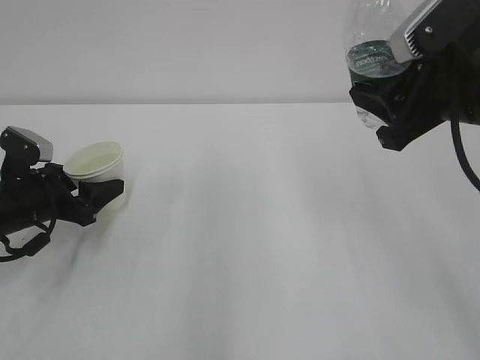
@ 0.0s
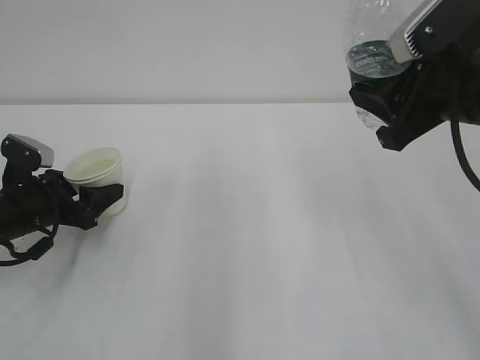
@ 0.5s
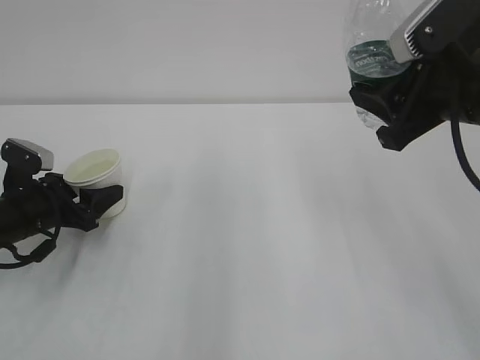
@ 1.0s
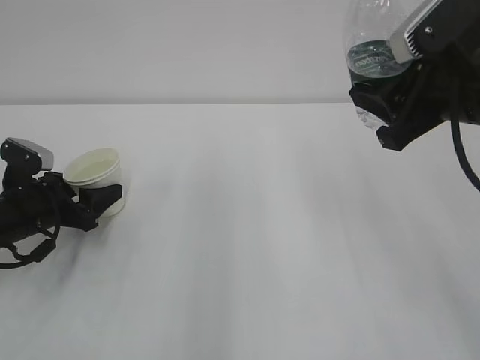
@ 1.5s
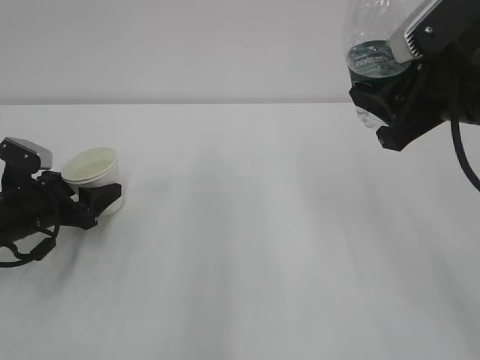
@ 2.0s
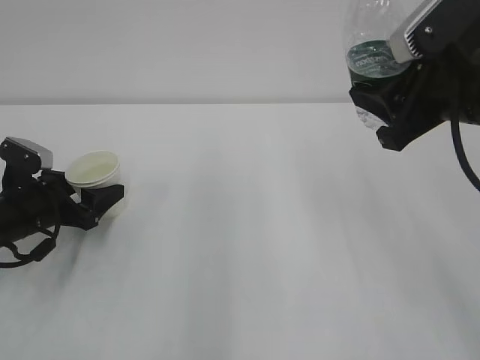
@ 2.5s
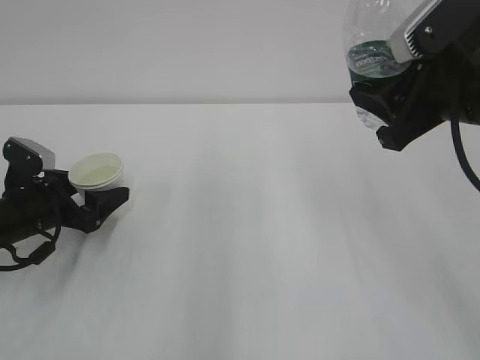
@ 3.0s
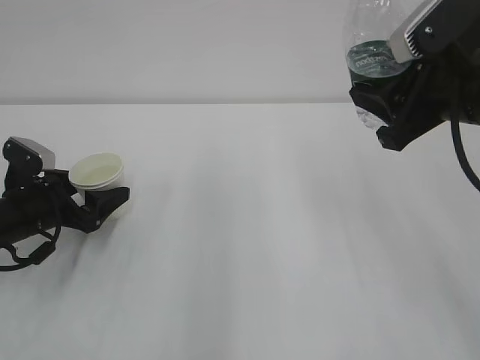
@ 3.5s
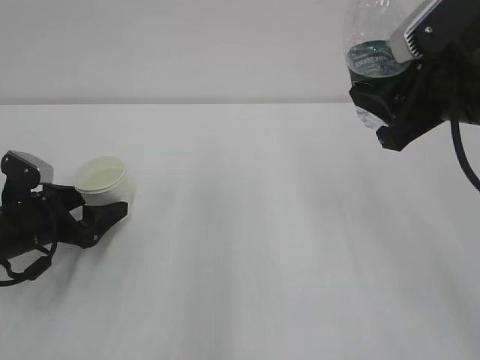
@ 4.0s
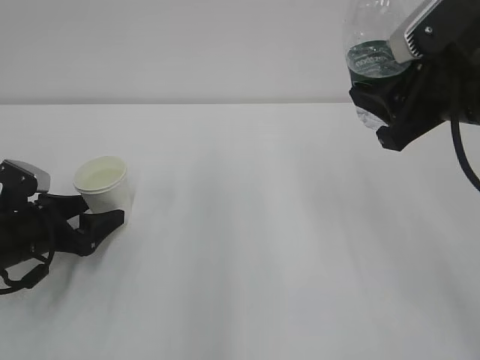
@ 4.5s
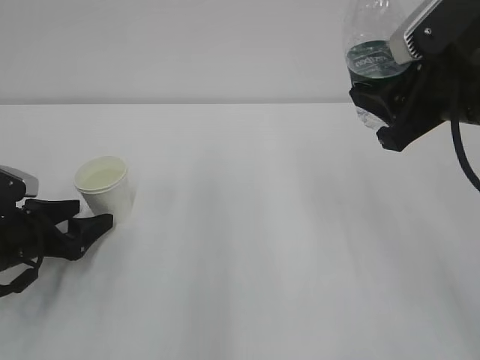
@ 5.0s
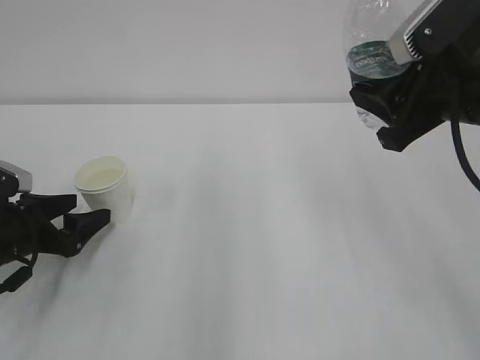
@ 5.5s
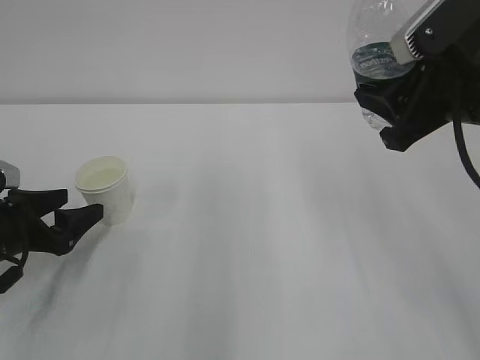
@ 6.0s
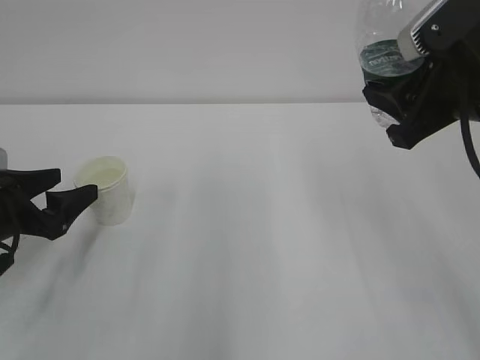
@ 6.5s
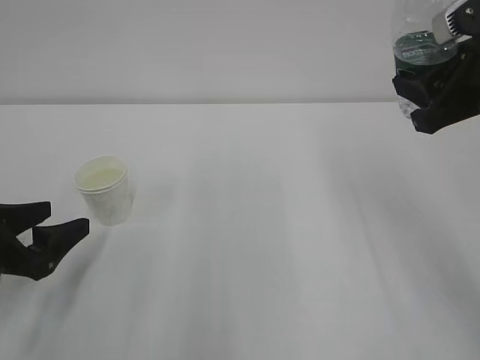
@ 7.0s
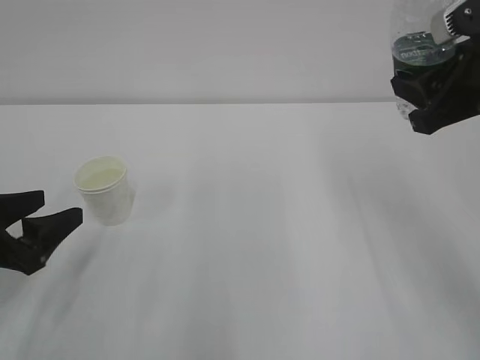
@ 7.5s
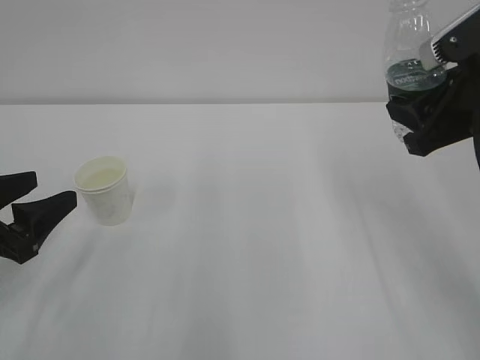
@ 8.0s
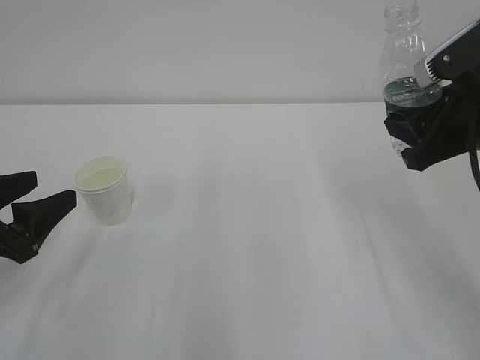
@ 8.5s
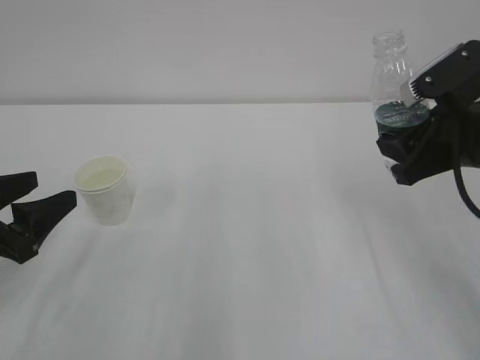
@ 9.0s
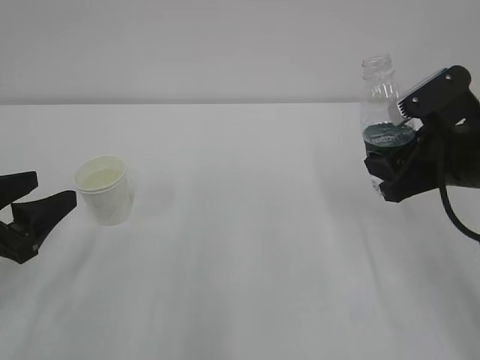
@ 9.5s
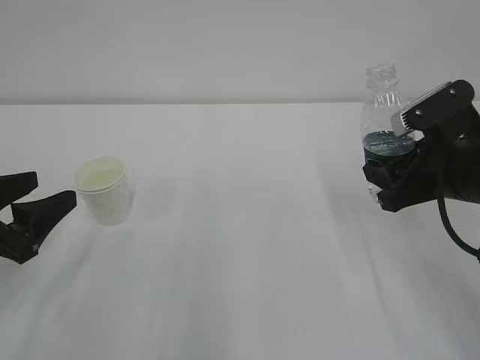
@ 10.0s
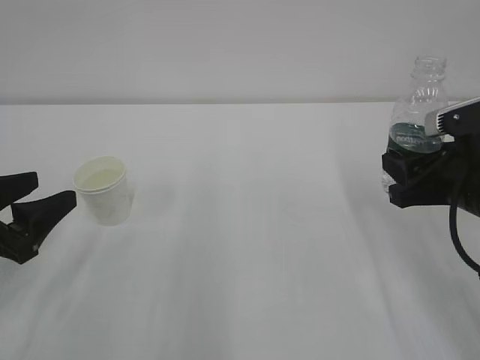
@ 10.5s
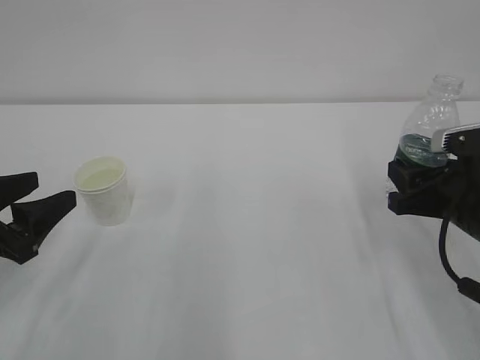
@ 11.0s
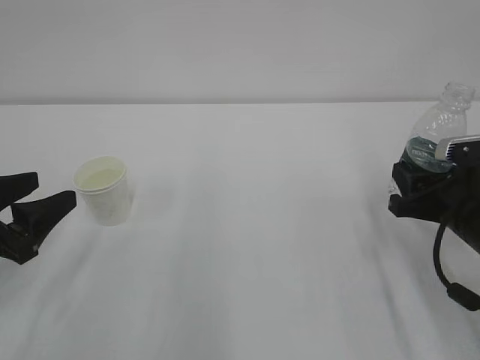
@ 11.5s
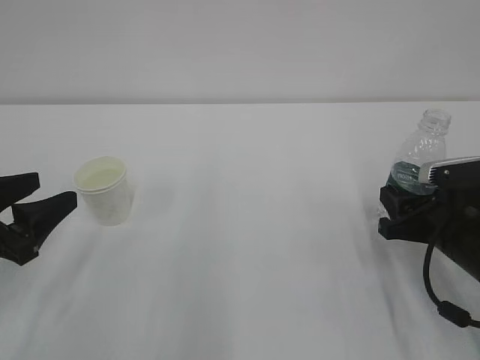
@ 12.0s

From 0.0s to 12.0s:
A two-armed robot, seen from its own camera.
Step, from 0.0s to 3.0s: Put the cup down with left gripper.
From 0.0s to 2.0s: The grippers stay close to where they were, moving slightly.
From 2.0s to 4.0s: The left gripper opens its fingers.
From 4.0s to 6.0s: The grippers move only a little.
From 6.0s to 8.0s: The left gripper goes approximately 10 cm upward and backward.
From 8.0s to 10.0s: The right gripper moves downward, some 10 cm.
From 10.0s to 12.0s: The right gripper travels downward by roughly 10 cm.

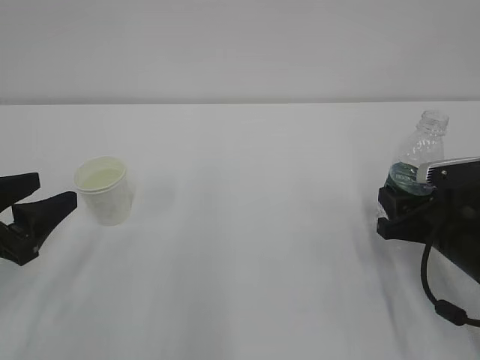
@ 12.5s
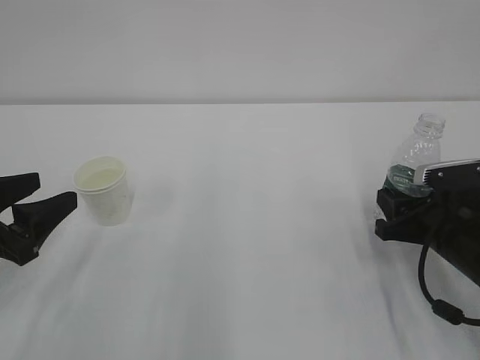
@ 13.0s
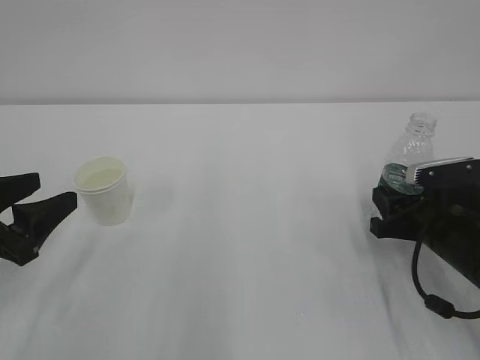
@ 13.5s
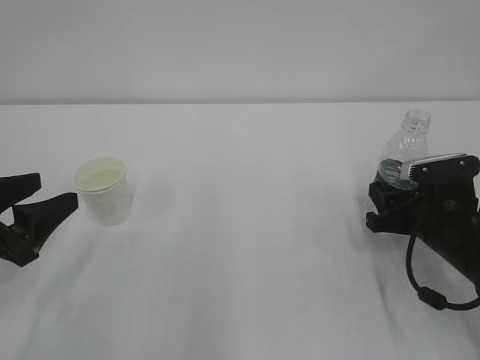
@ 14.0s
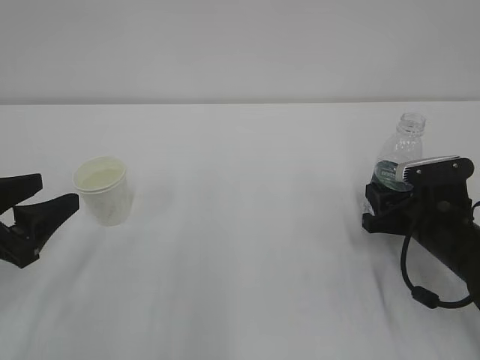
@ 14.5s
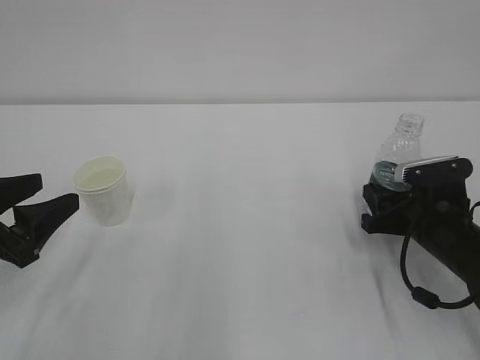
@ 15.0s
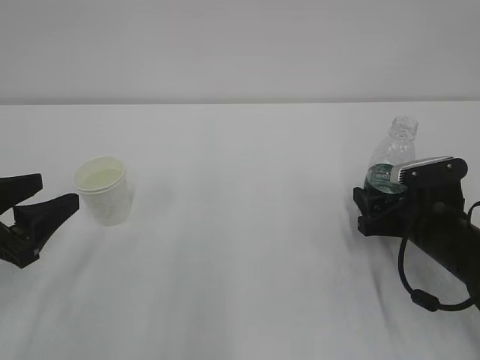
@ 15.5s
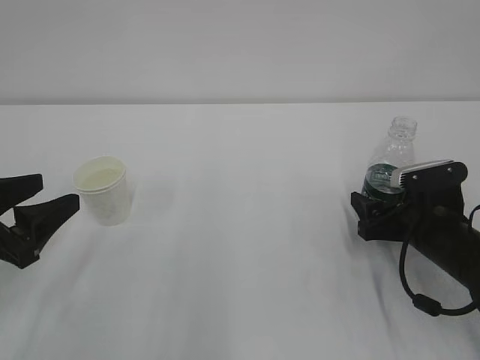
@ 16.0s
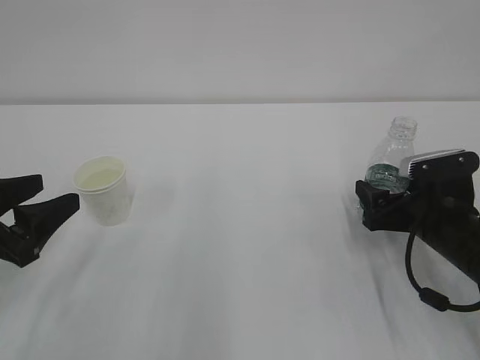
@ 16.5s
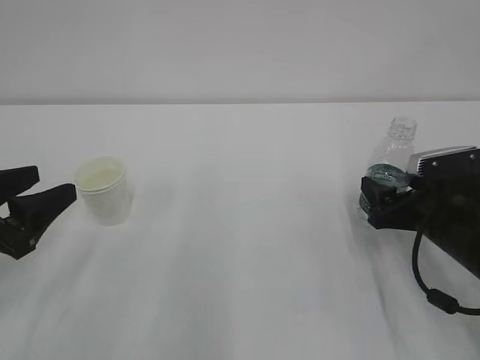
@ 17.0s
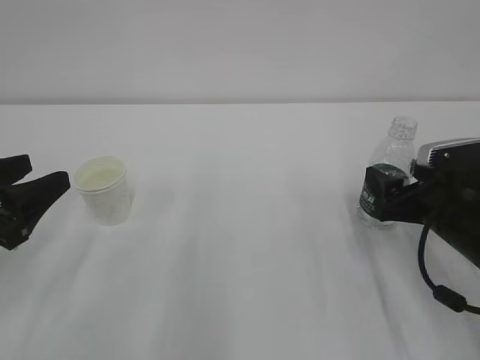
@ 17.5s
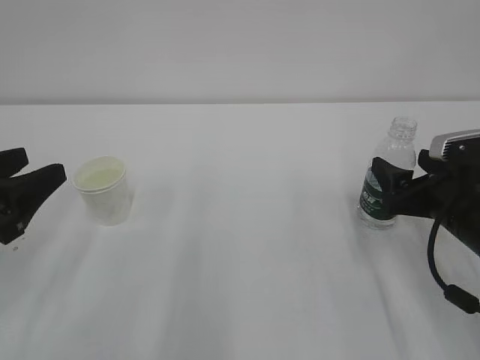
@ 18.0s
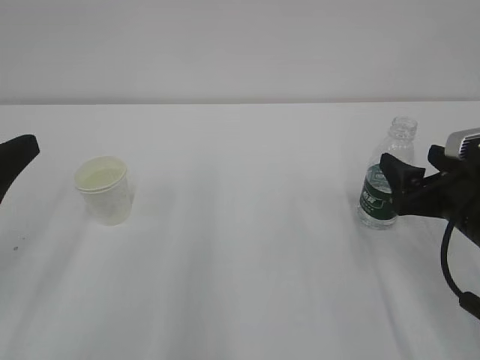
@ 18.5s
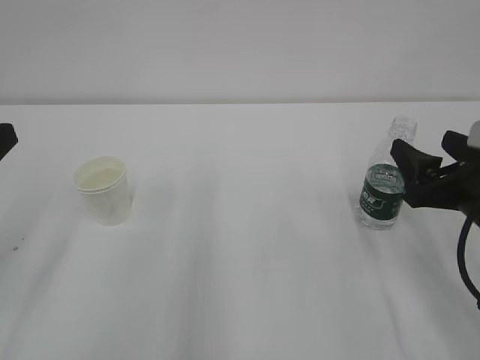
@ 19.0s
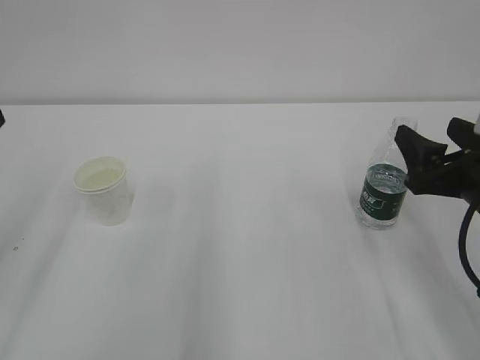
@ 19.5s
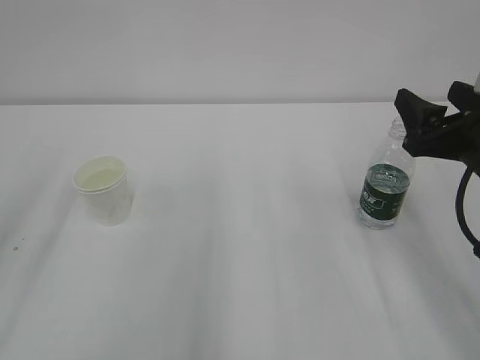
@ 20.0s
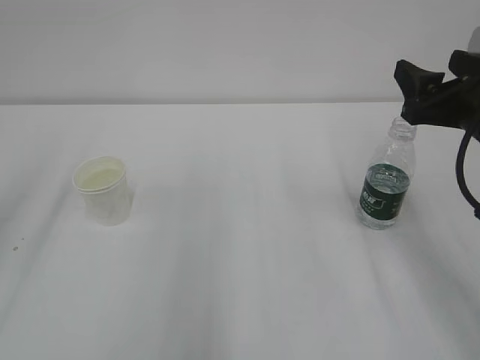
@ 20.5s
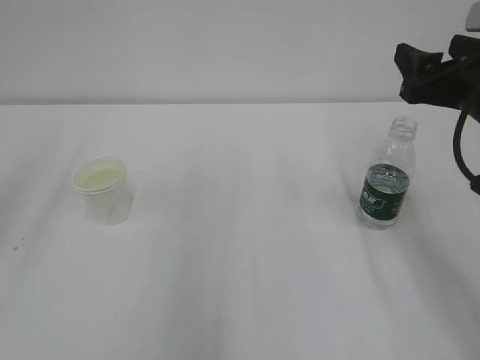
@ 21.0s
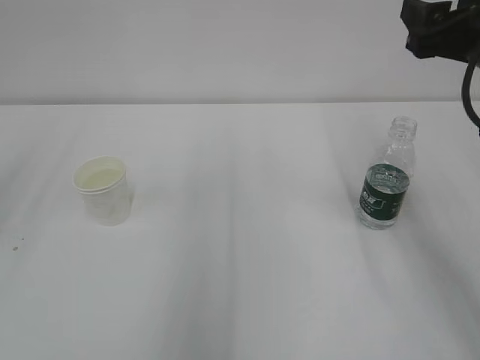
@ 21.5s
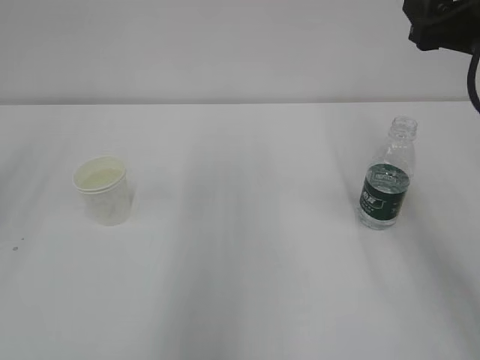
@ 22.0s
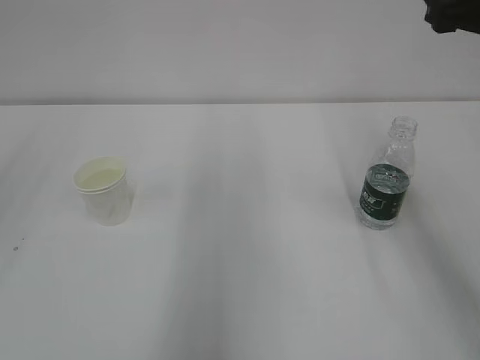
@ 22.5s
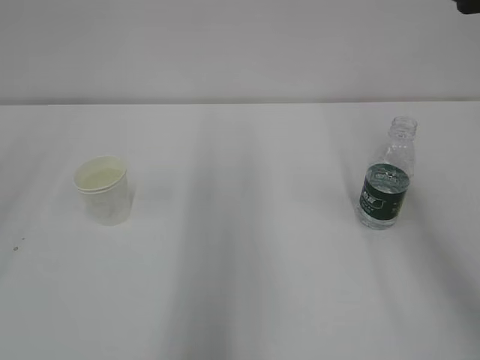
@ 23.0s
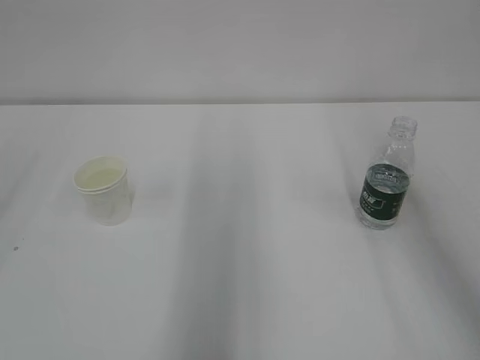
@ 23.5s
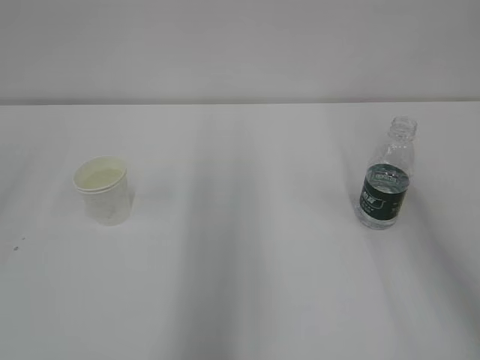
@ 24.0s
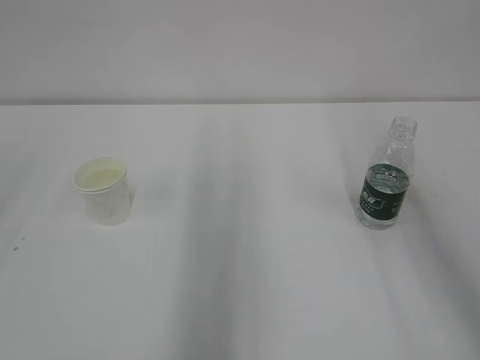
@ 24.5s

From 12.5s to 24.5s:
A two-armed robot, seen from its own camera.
Step, from 12.5s to 15.5s: Put the bottle down with right gripper.
From 12.5s to 14.5s: The grippers make only small movements.
From 14.5s to 16.5s: The right gripper opens up.
From 16.5s to 18.5s: The grippers both shift upward by some 5 cm.
From 18.5s to 20.5s: Both grippers travel together upward, some 10 cm.
From 20.5s to 22.5s: Both grippers travel together upward, approximately 10 cm.
From 22.5s to 24.5s: The right gripper ends up roughly 5 cm from where it was.

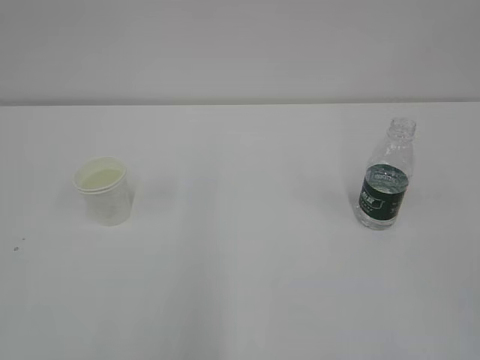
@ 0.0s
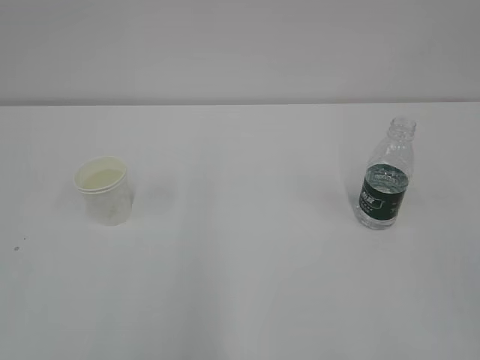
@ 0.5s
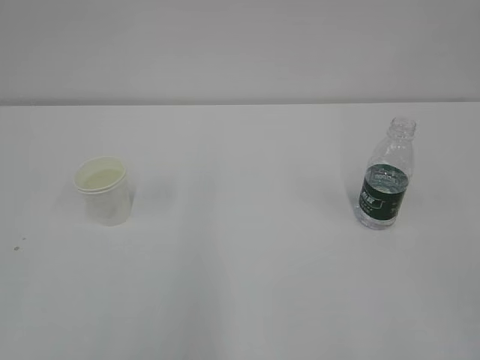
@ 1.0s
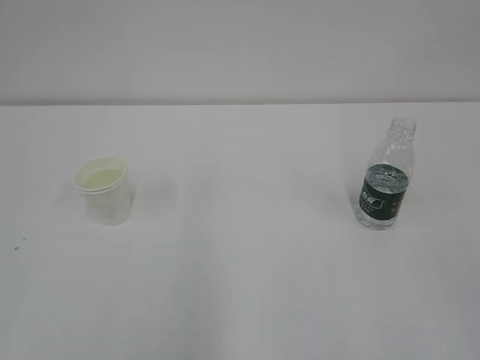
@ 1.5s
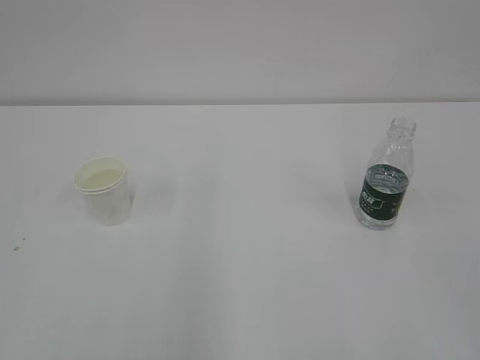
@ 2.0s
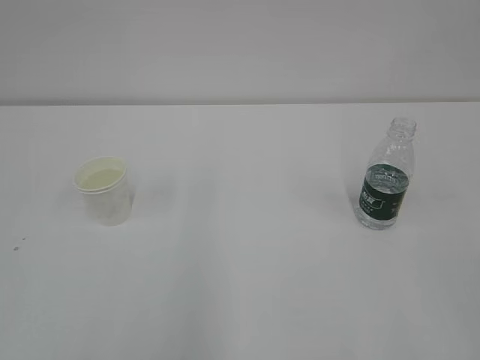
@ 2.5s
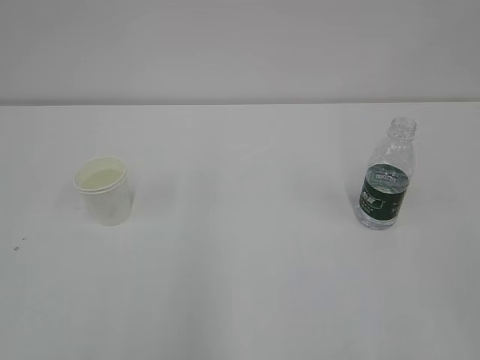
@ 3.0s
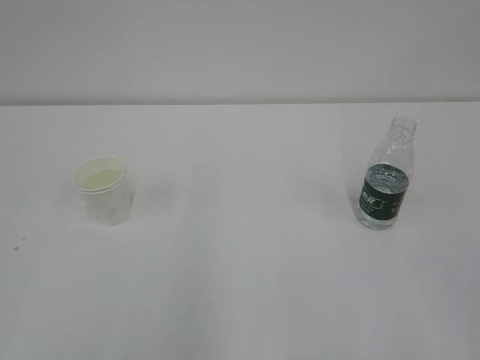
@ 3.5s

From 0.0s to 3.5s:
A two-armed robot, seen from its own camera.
From 2.0s to 3.5s: Both grippers stay about where they are.
